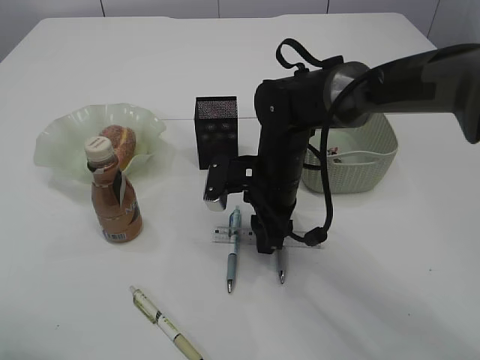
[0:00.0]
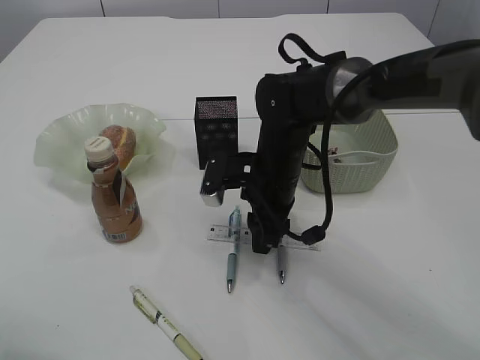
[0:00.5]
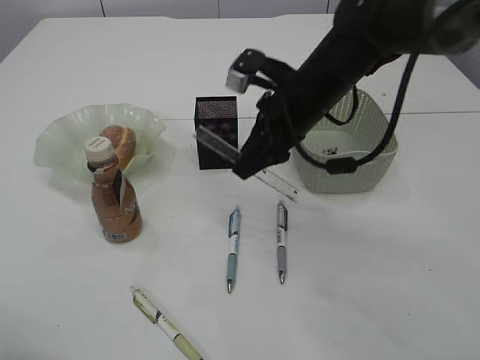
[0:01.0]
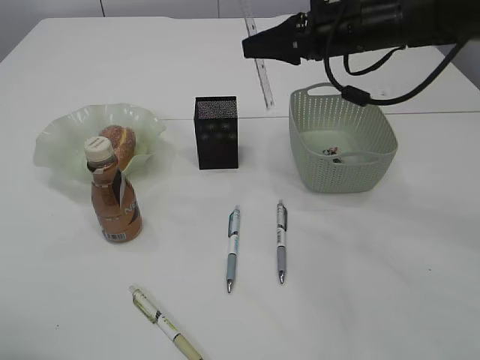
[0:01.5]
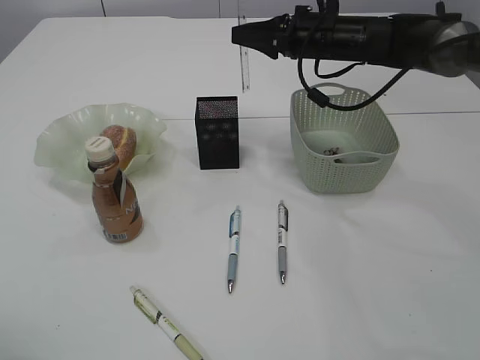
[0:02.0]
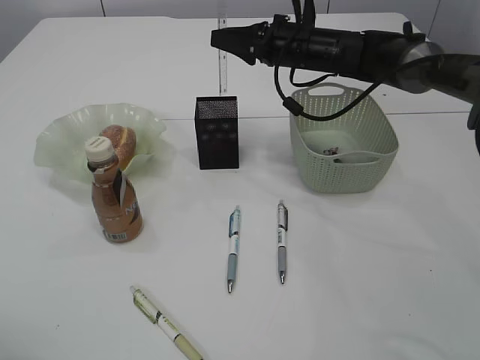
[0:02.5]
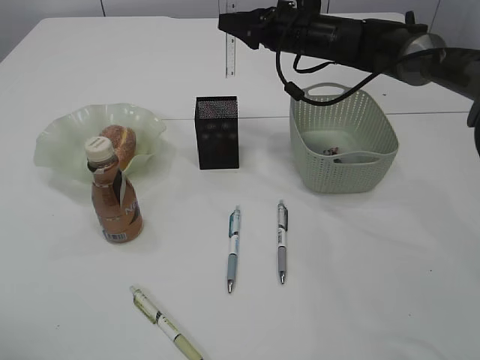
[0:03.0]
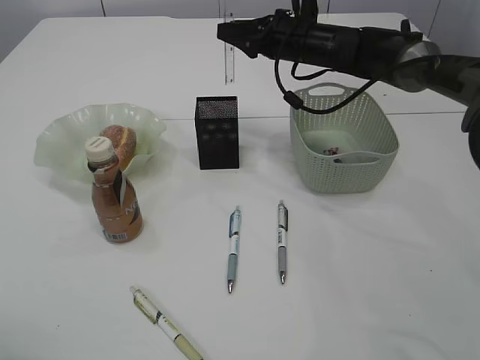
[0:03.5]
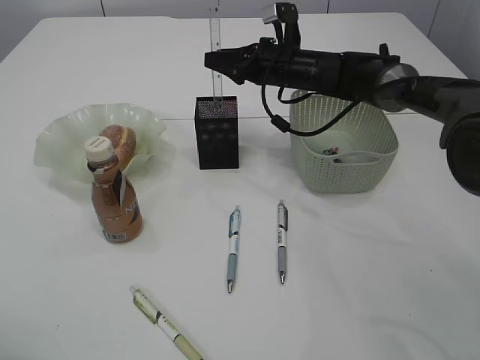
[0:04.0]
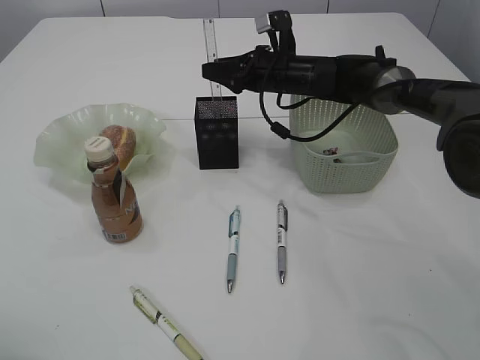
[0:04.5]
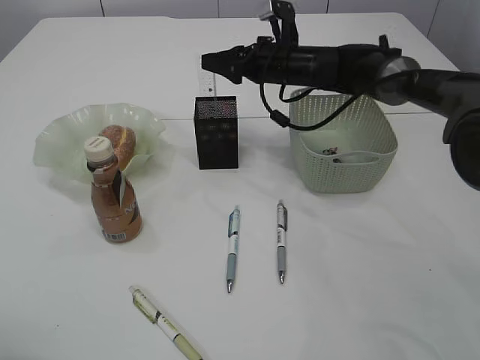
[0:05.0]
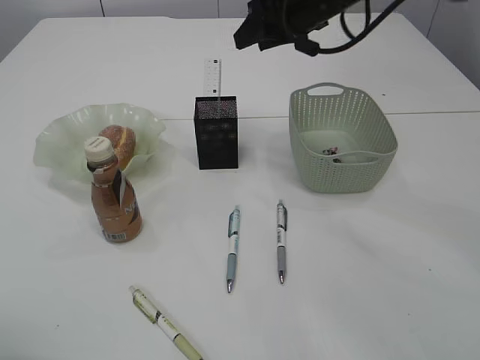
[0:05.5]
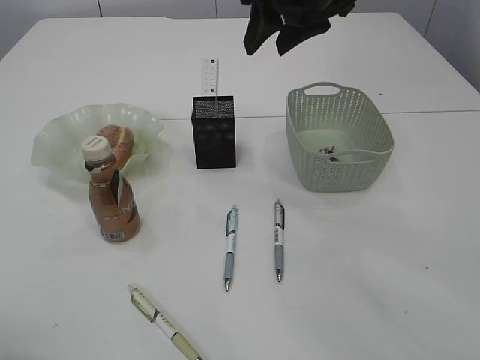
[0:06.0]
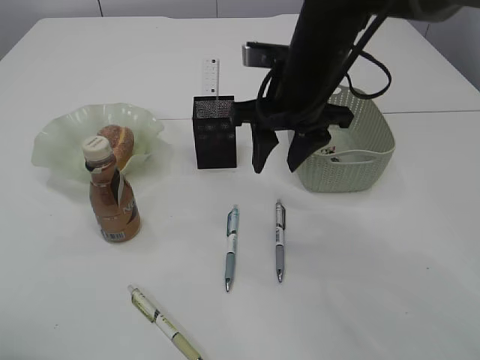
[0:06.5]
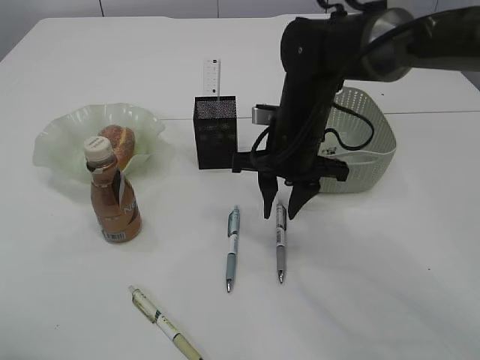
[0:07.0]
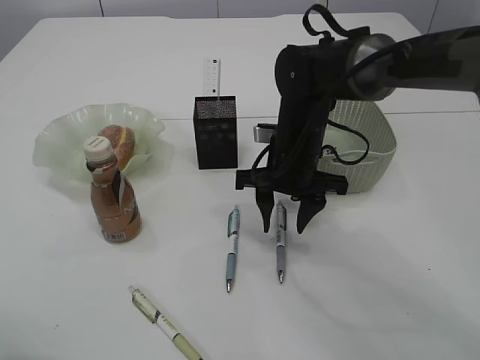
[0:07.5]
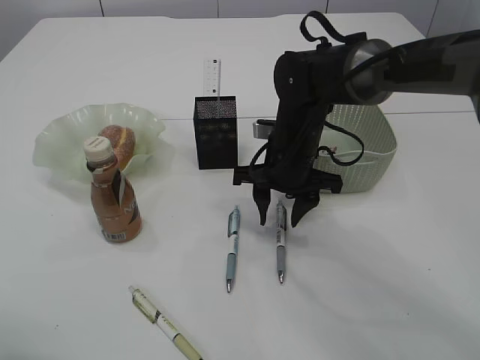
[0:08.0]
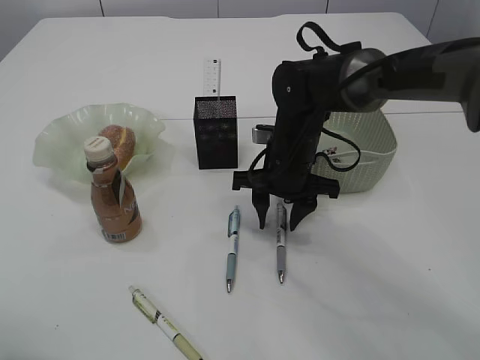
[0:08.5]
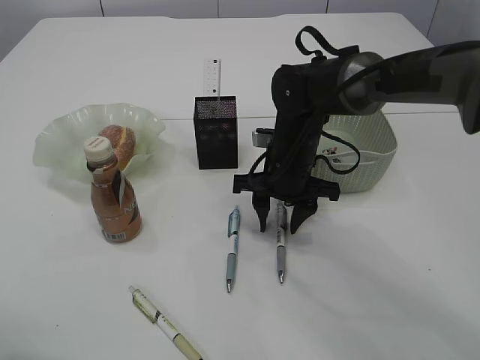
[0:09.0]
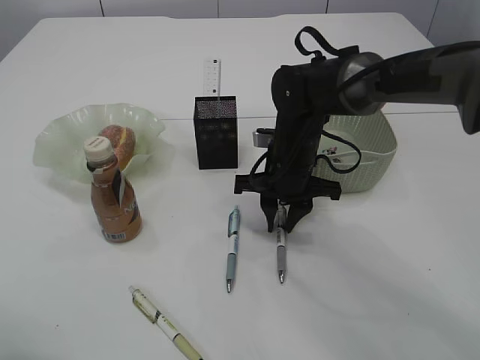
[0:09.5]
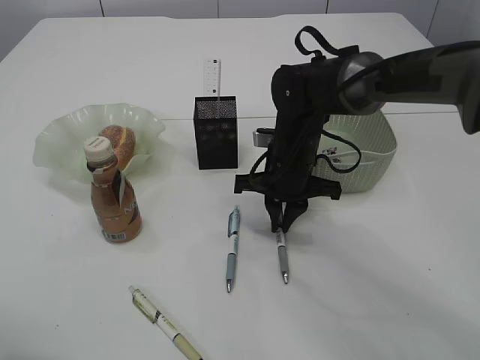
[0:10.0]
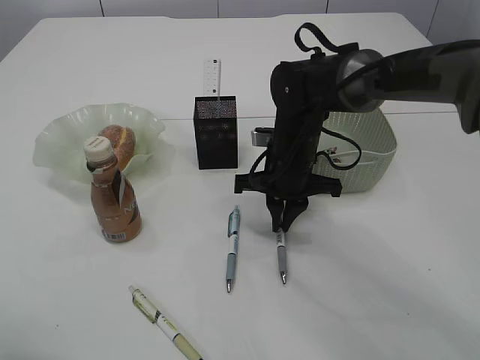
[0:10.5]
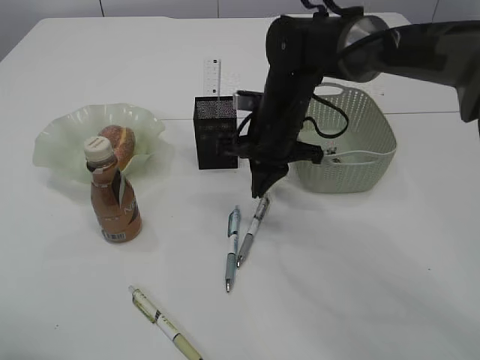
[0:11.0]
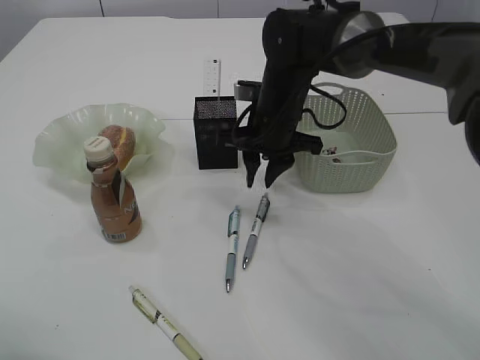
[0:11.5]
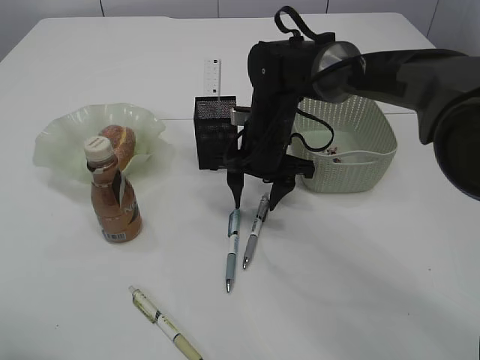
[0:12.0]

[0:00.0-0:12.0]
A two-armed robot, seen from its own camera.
Step, 0:01.0 to 0:05.5: Place the ruler into the pen holder.
0:00.0 to 0:02.0: The right gripper moves forward, upward and to the right, approximately 20 cm.
0:02.0 to 0:04.0: The right gripper travels downward by approximately 5 cm.
0:04.0 to 0:06.0: The right gripper goes approximately 20 cm upward and backward.
0:06.0 to 0:08.0: The right gripper shifts about 20 cm downward.
0:08.0 to 0:10.0: The right gripper closes its fingers.
0:10.0 to 0:12.0: The right gripper opens up.

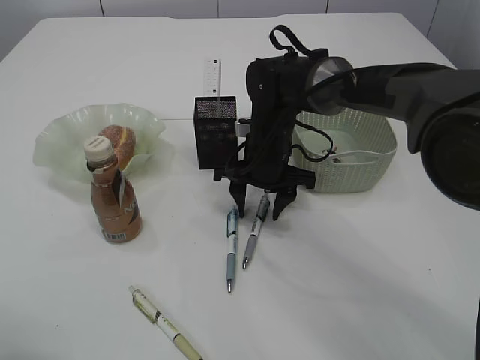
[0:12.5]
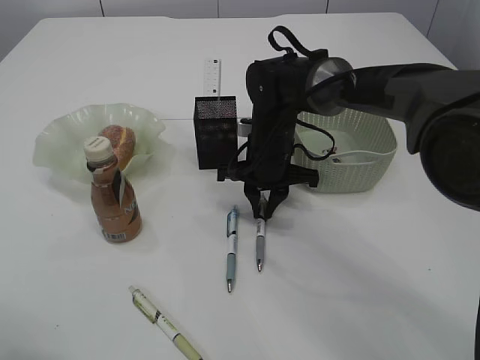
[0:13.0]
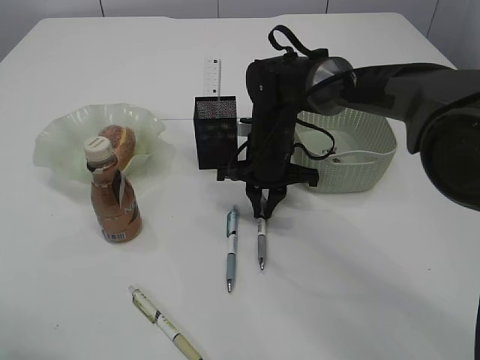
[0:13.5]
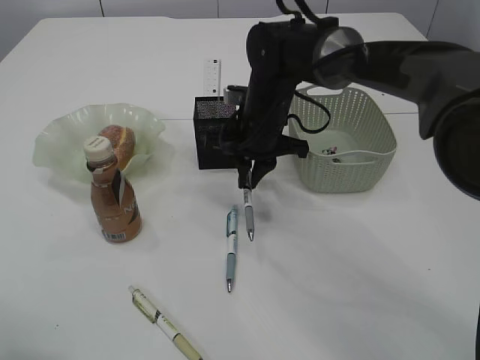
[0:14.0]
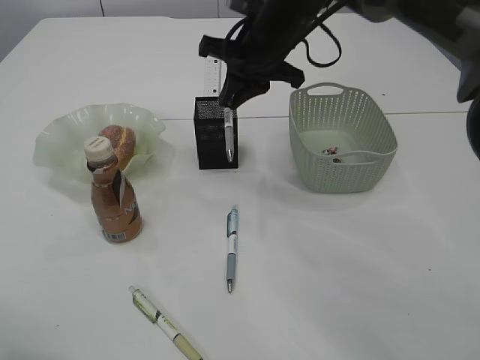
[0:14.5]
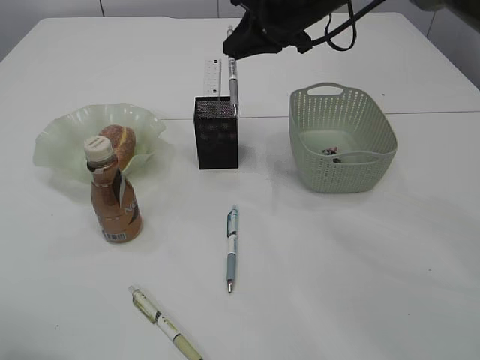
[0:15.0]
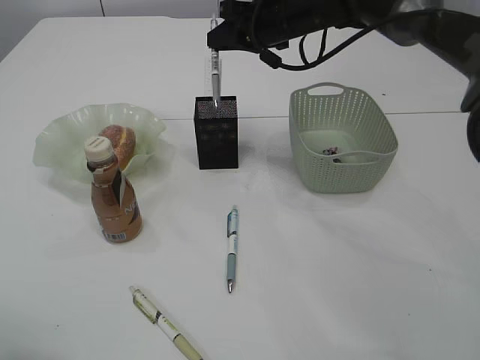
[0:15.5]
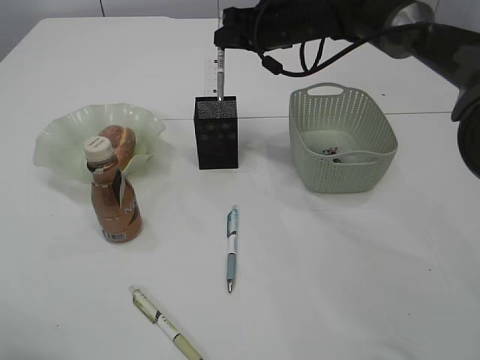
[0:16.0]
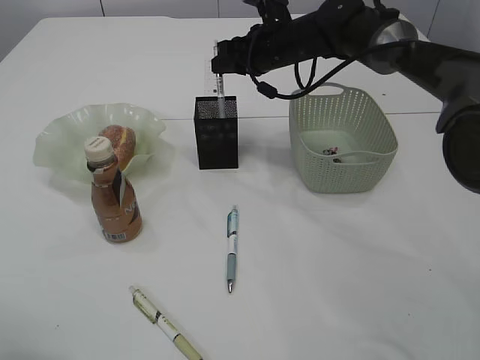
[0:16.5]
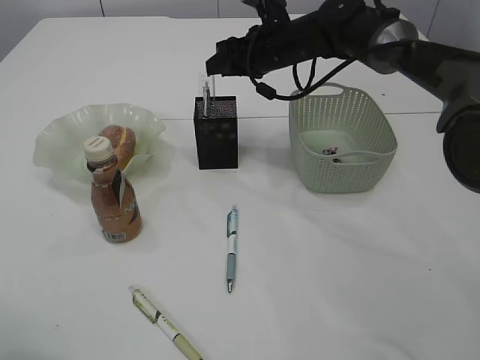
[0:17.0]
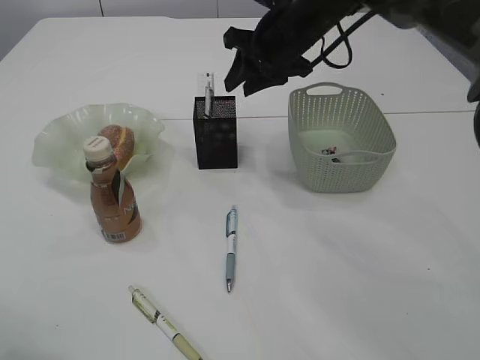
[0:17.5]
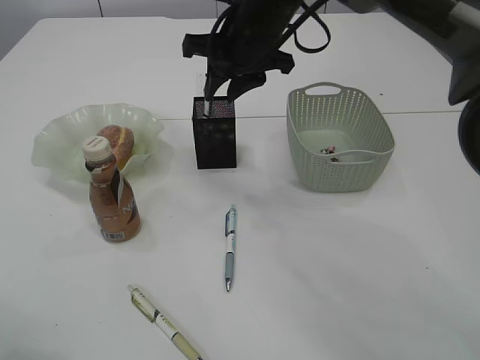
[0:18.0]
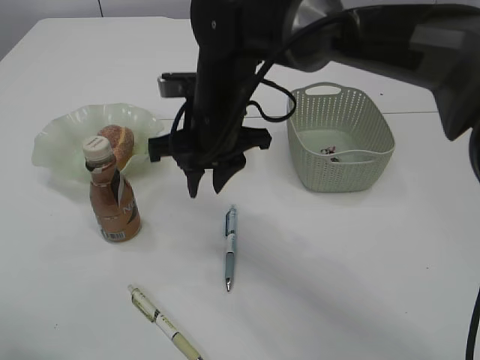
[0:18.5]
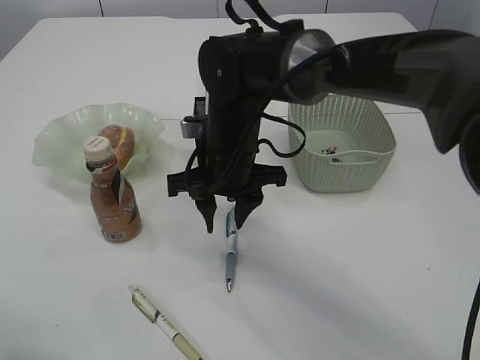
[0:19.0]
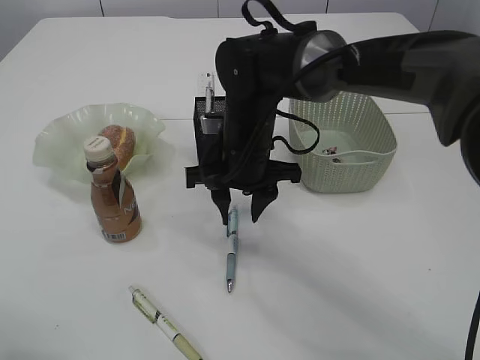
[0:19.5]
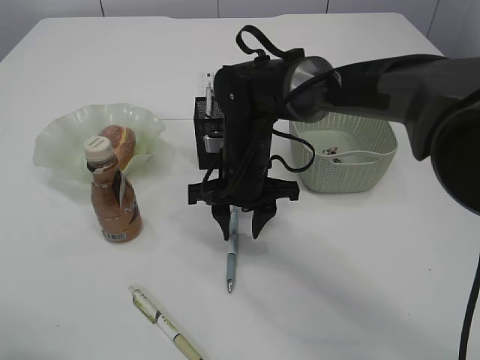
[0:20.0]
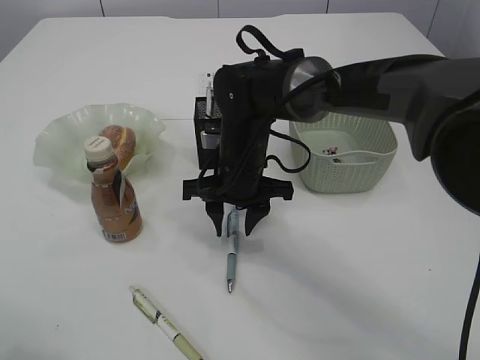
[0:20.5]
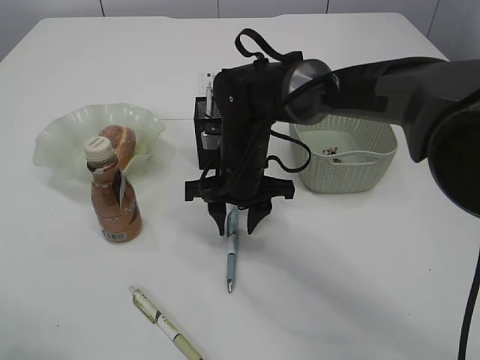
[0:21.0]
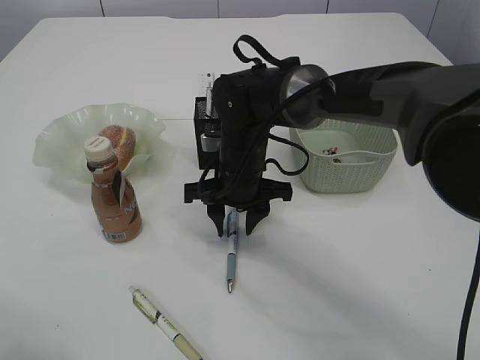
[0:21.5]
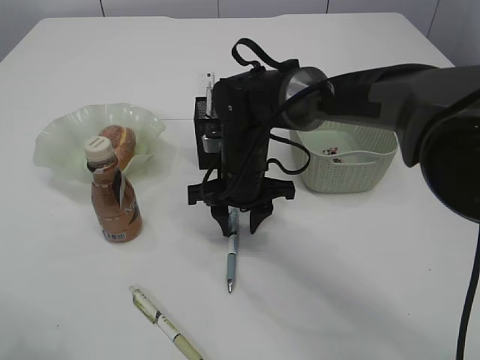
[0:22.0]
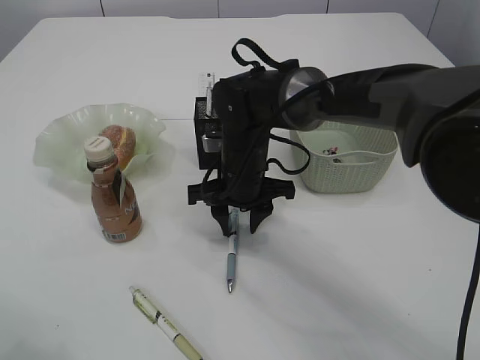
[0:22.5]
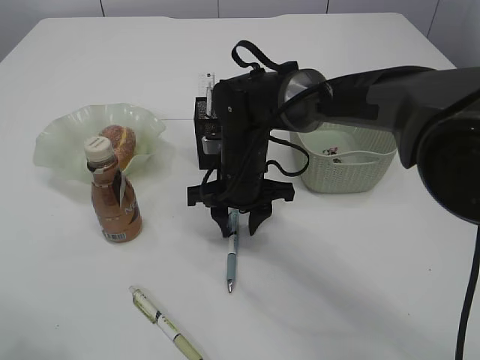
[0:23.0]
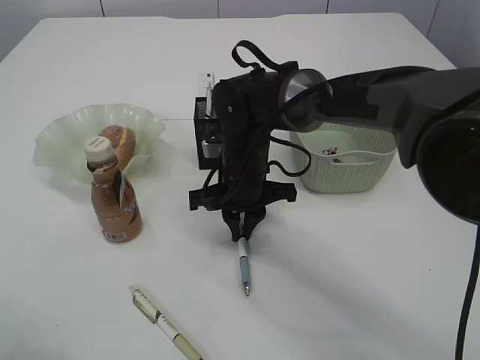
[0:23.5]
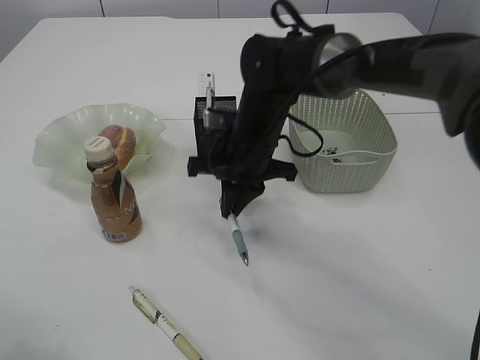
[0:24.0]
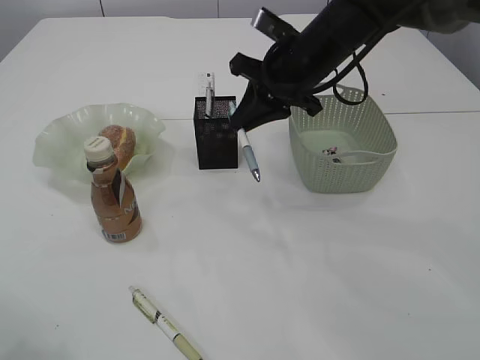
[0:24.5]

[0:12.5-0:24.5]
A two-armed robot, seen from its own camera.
Step, 0:12.5 to 0:14.5: Pick up the pen with right arm.
Step, 0:15.0 to 0:18.0: Place the pen into the pen holder.
Step, 0:18.5 to 0:23.5: Pick up the pen with right arm.
0:12.5 to 0:14.5: The right gripper shifts approximately 15 cm upward, and closes.
0:14.5 to 0:16.5: The right gripper shifts roughly 5 cm forward.
0:16.5 to 0:18.5: The right gripper travels backward and to the left by about 20 cm.
0:18.5 to 0:20.5: The right gripper goes roughly 10 cm downward.
0:20.5 to 0:22.5: The grippers make only small movements.
0:22.5 to 0:24.5: The right gripper travels upward and to the right by approximately 15 cm, and closes up.

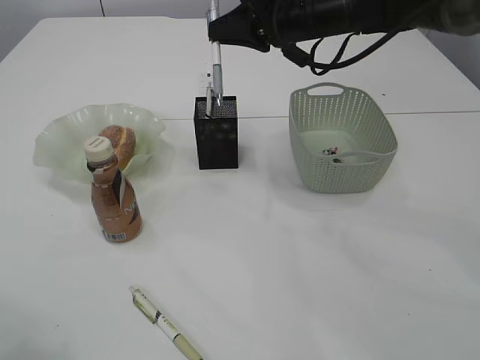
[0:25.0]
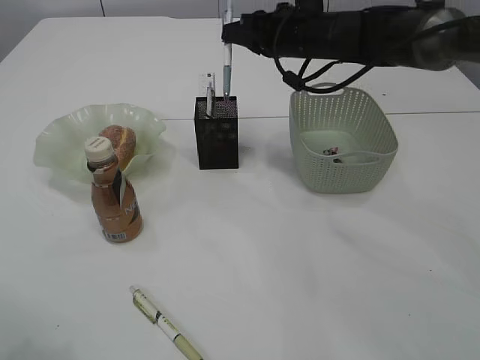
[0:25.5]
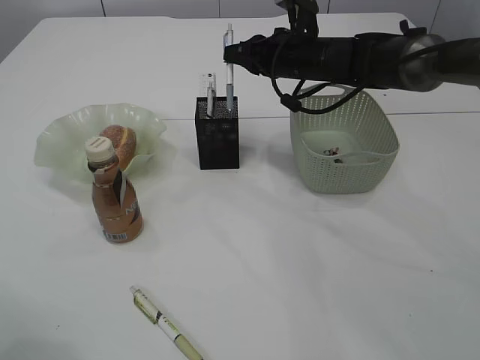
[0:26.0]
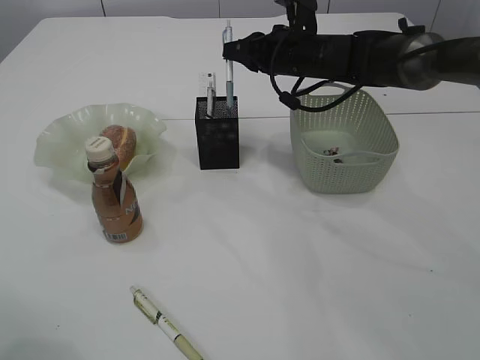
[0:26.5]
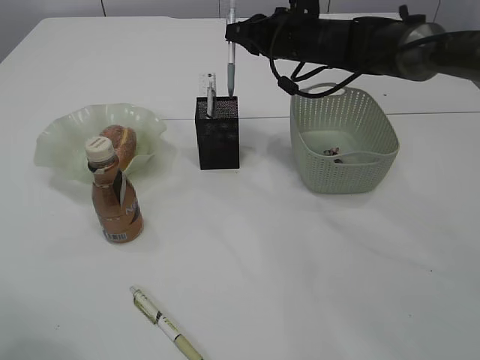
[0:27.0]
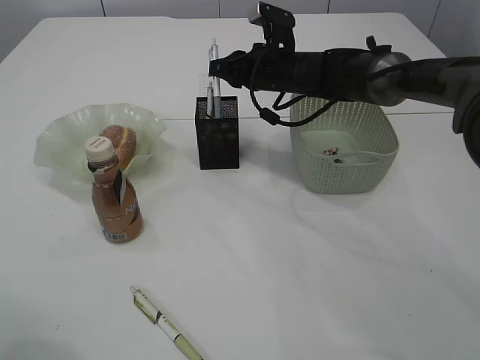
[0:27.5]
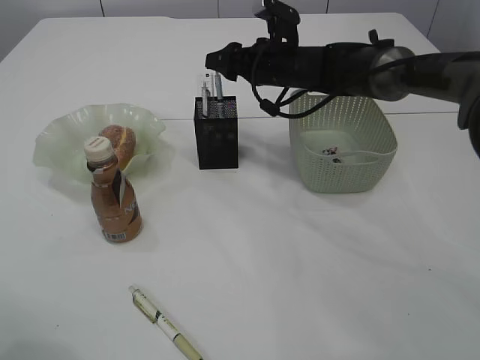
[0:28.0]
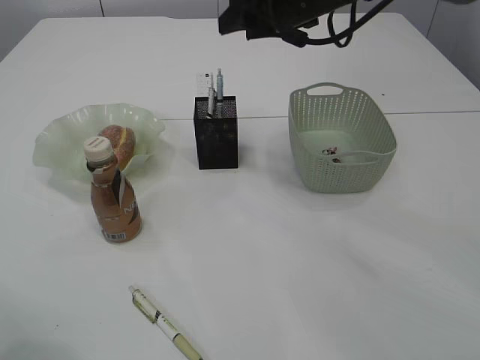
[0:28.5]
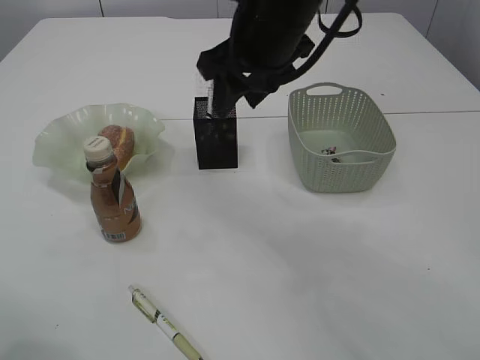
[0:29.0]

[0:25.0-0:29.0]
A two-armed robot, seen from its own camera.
Step, 0:25.0 to 0:28.5: Place the pen into the pen holder.
0:25.0 to 0:27.0: The right gripper heads forward and downward, covering approximately 10 cm.
0:27.0 to 0:29.0: The right gripper moves backward, upward and to the left, about 15 cm, and opens its fingers.
